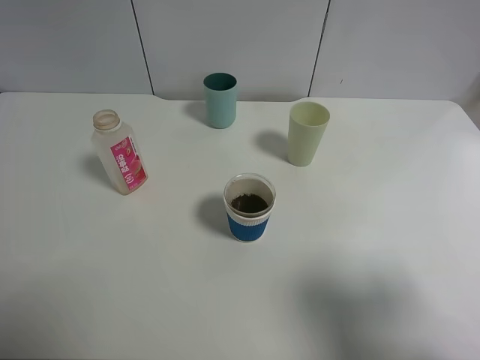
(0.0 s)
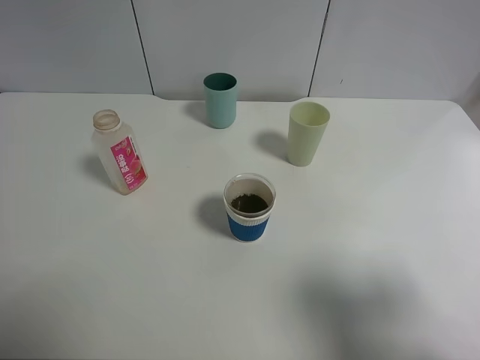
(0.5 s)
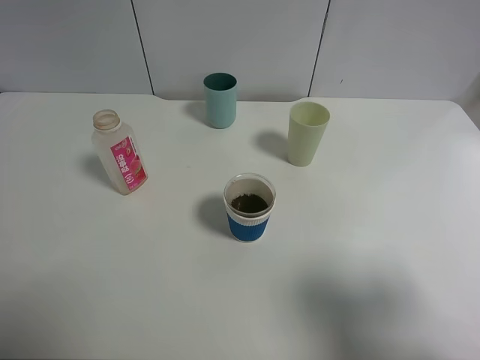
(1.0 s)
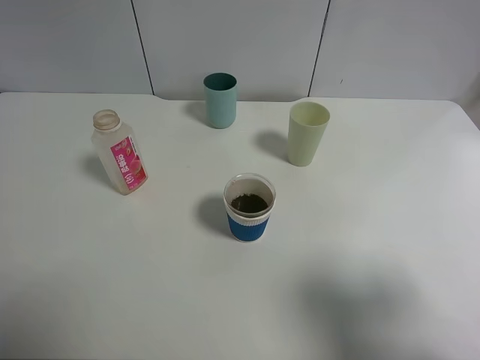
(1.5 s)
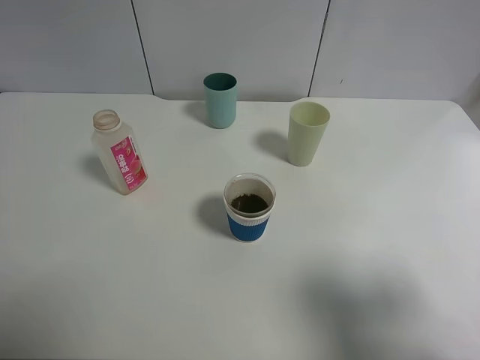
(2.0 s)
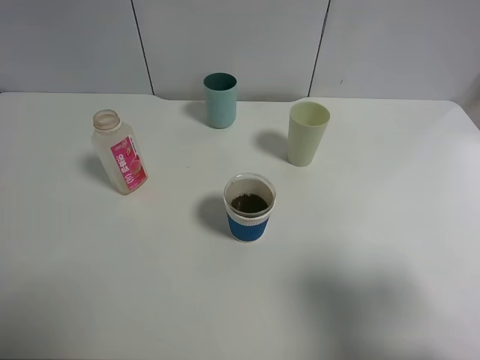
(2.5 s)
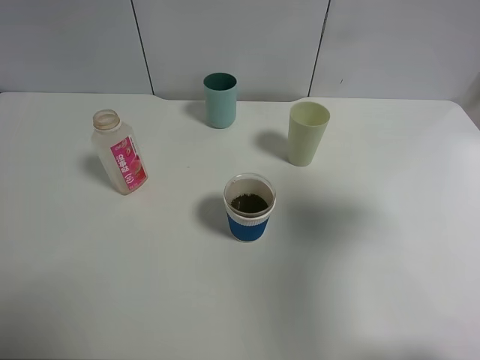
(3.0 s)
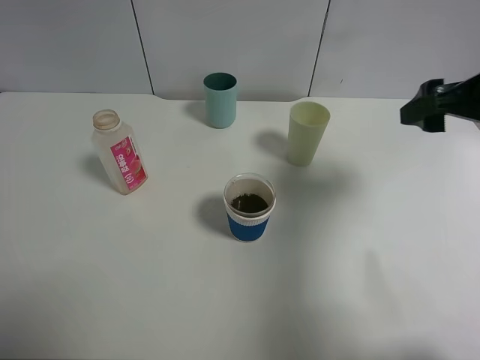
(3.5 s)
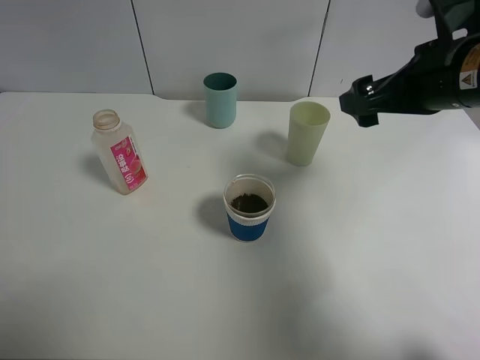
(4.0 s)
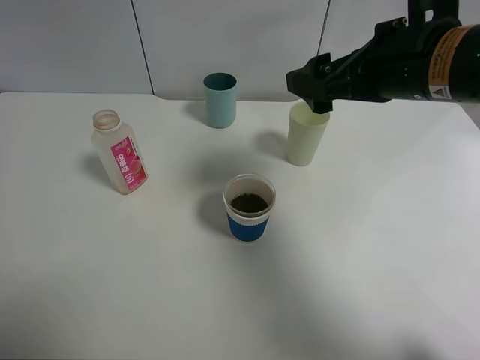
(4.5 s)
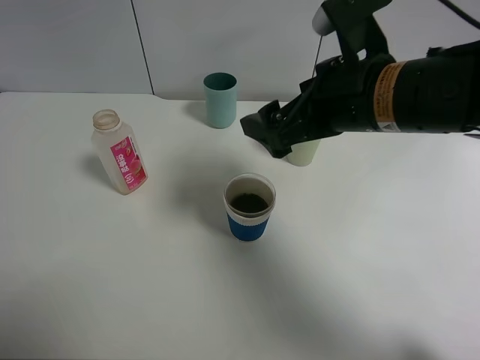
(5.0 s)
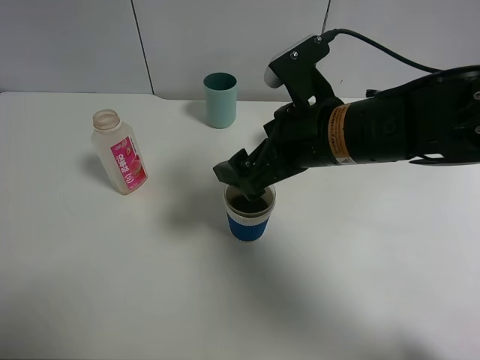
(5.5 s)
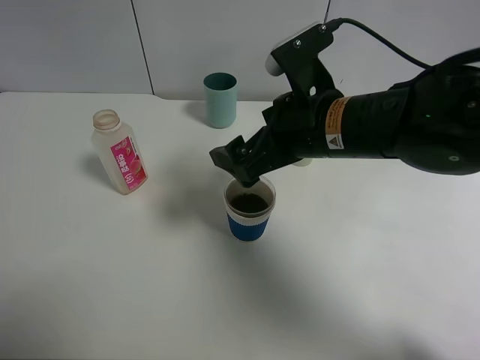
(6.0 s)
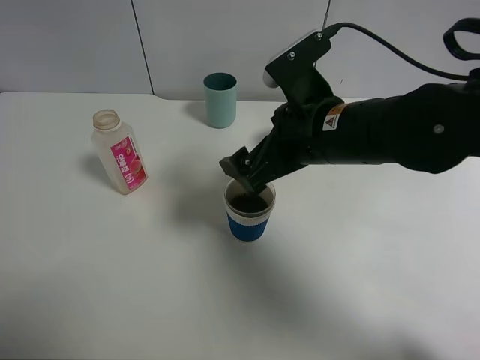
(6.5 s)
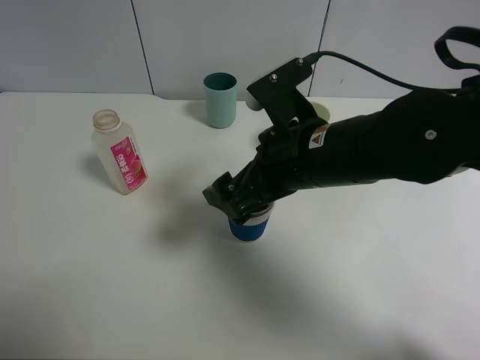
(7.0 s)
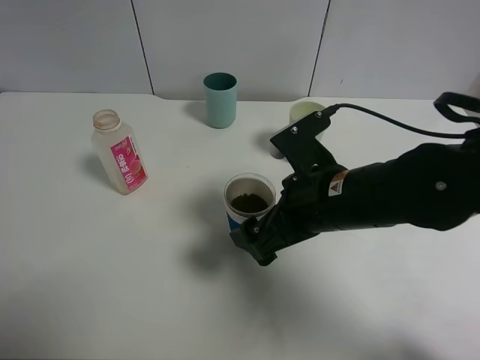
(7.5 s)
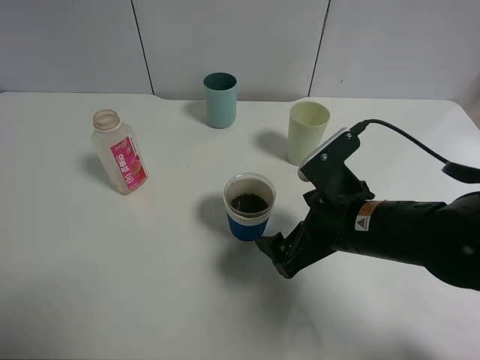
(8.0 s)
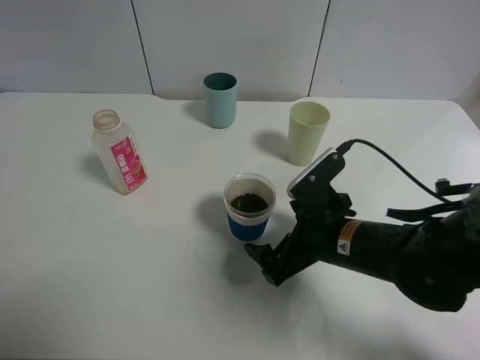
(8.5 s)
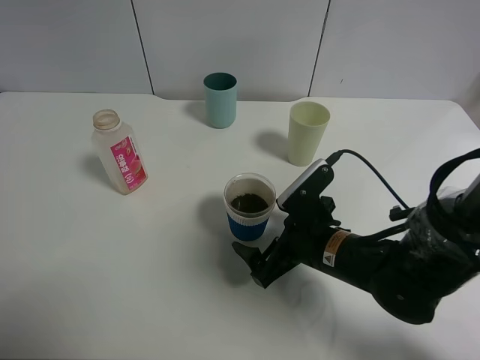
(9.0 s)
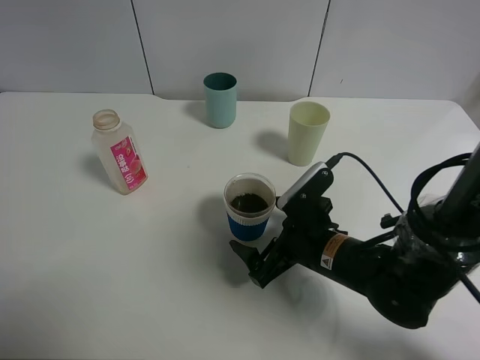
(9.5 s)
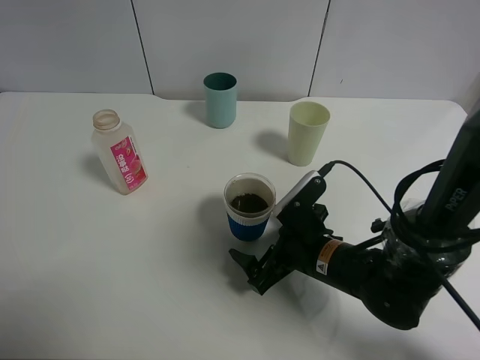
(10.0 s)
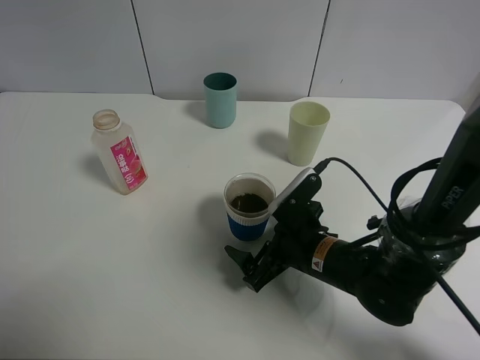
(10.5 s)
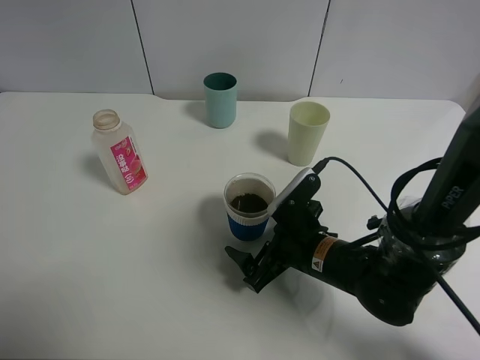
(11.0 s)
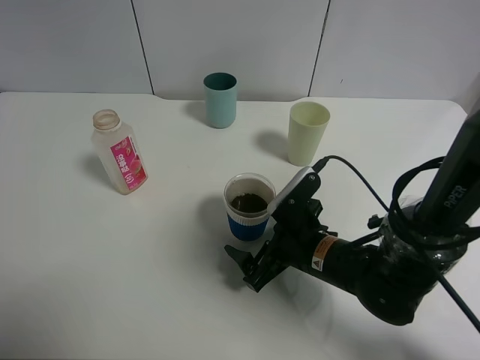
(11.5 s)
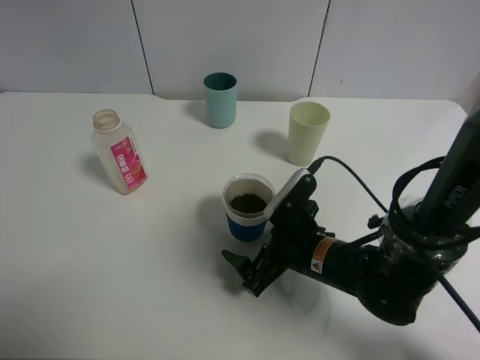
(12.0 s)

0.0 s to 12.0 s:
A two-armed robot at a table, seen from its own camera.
Task of the whole recording: use a clamp to hold the bottle of the drink, pour the beverage into a random cup, then clamp the cup containing the drink and pour the drink into another random cup.
0.0 to 2.0 s: Both grippers stay about where they are.
2.0 to 4.0 s: The right gripper shifts roughly 25 cm forward.
4.0 to 6.0 s: The right gripper moves to the left and downward, approximately 15 cm.
6.0 to 8.0 s: The right gripper moves downward and backward, roughly 10 cm.
8.0 to 10.0 s: The right gripper shifts roughly 10 cm downward.
10.0 to 12.0 s: Neither gripper changes place.

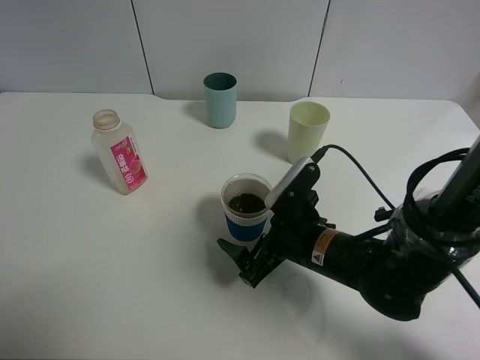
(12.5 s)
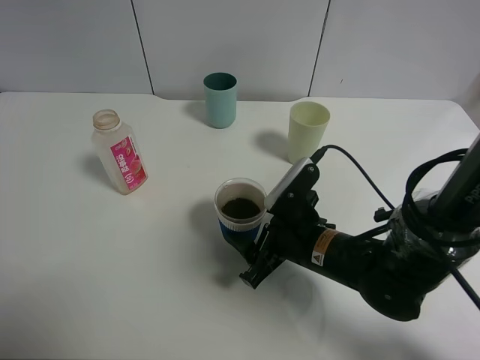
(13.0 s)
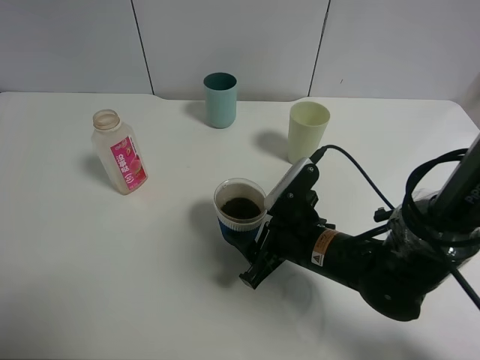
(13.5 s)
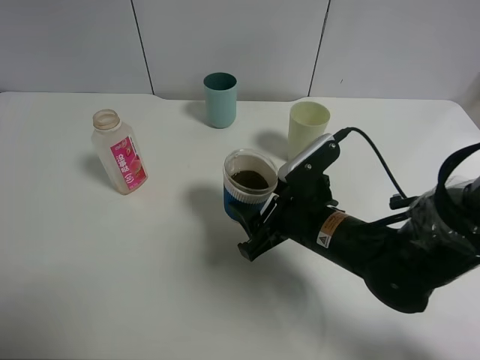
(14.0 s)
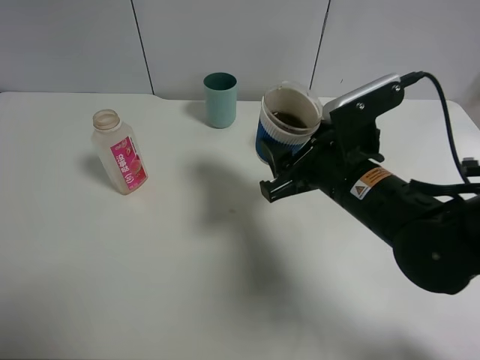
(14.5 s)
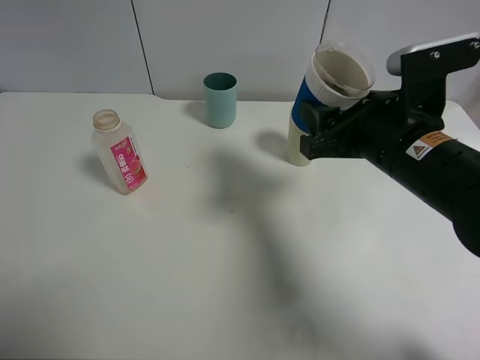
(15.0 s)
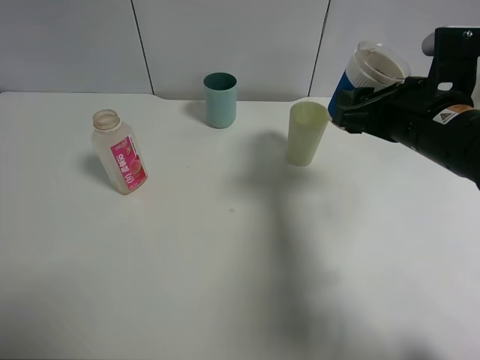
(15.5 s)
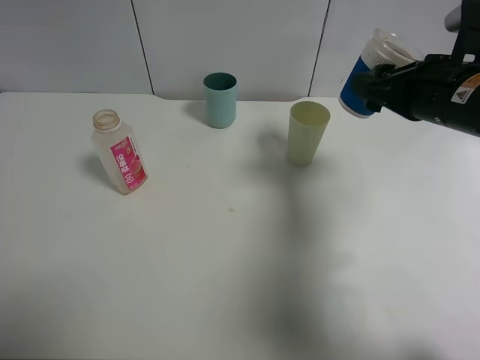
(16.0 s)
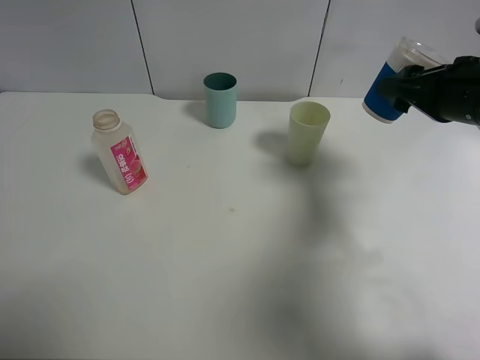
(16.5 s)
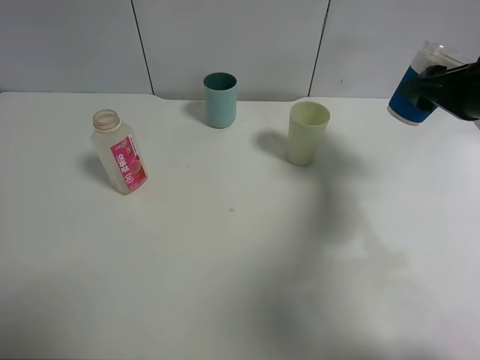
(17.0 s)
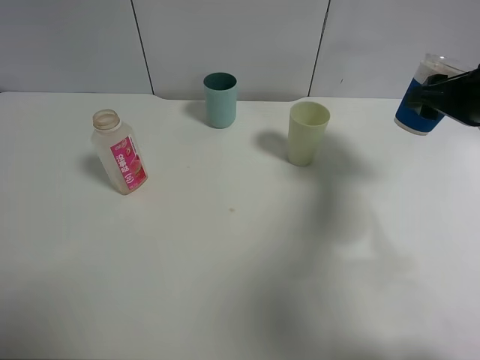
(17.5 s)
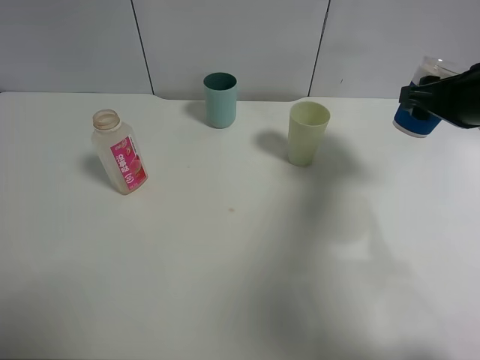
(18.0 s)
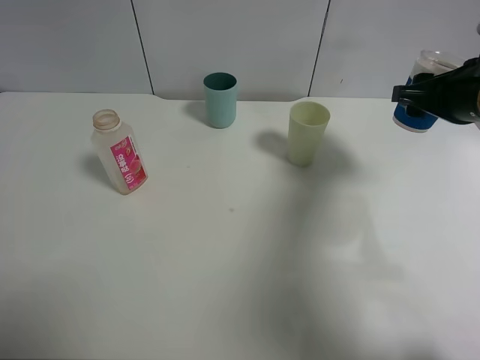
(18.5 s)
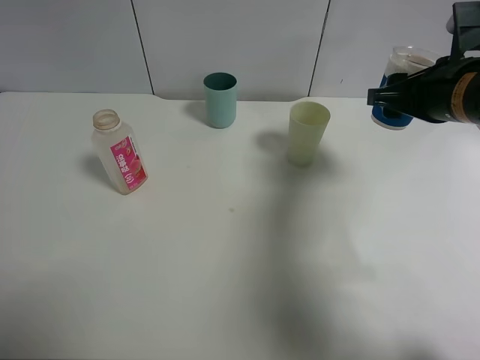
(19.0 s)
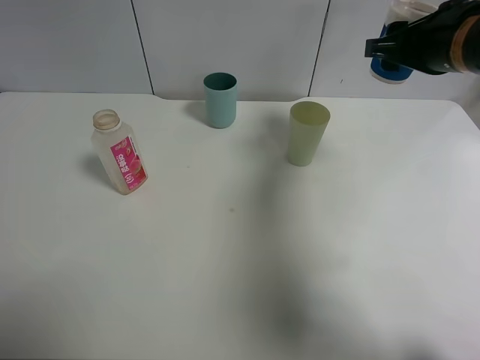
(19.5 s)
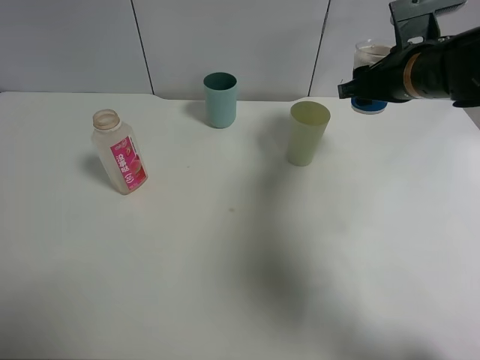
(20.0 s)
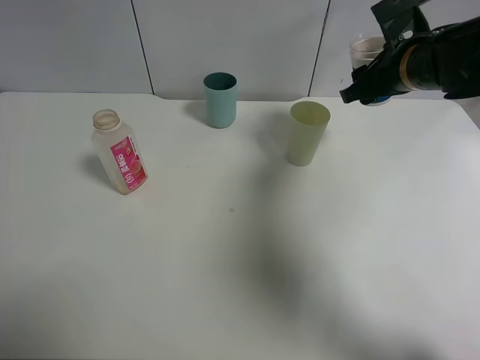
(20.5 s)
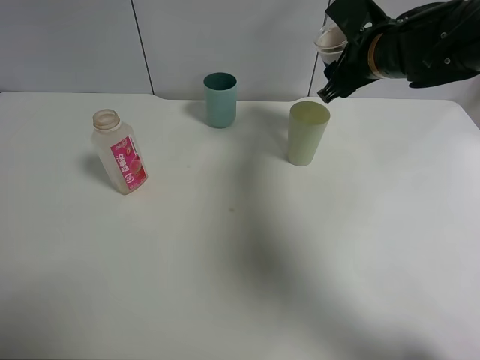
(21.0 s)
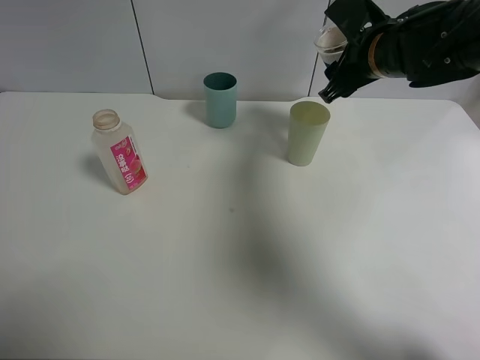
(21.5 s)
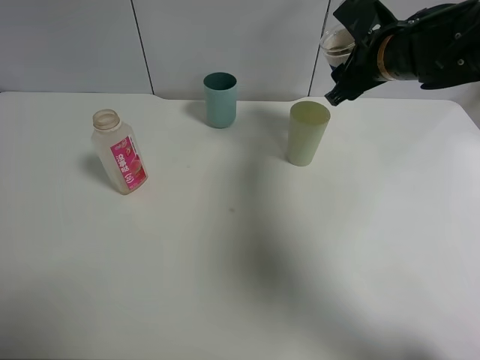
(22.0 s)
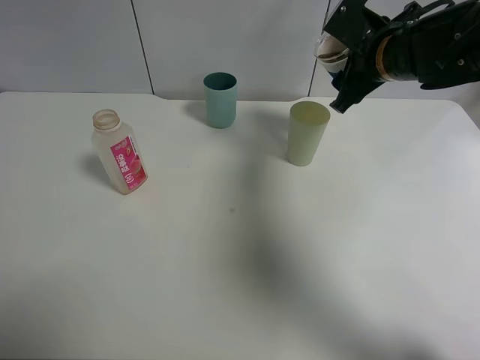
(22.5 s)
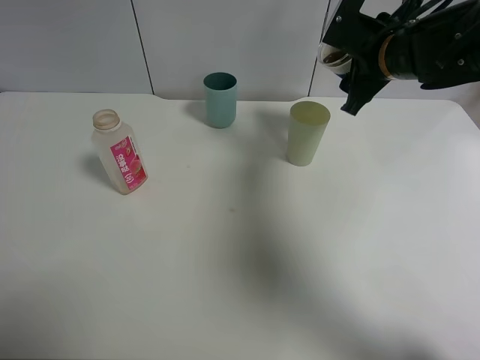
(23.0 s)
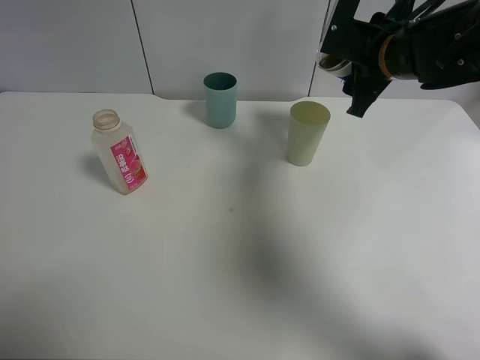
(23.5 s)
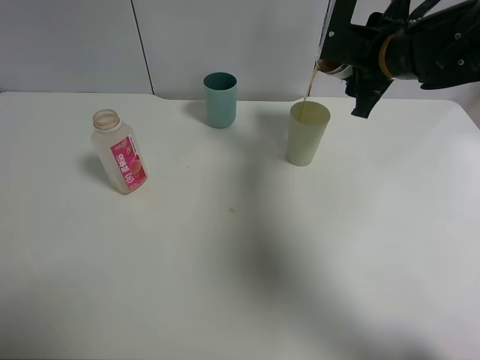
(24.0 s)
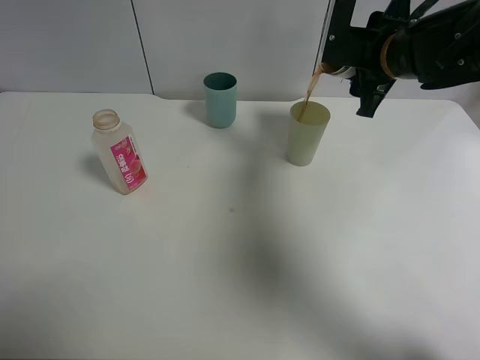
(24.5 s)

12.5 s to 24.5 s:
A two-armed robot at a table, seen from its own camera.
Task of the whole recording: use a clamp to hold the bottle of the drink, pour the beverage into a random cup, then clamp the cup containing the drink and pour the drink into another random cup.
12.5 to 14.5 s: The right gripper goes some 10 cm upward, and closes.
14.5 to 16.5 s: The right gripper is displaced to the right, forward and upward by approximately 15 cm.
16.5 to 18.5 s: The grippers move only a little.
18.5 to 20.5 s: The right gripper is displaced forward and to the left by some 10 cm.

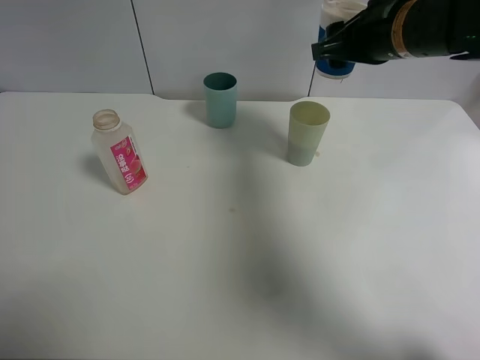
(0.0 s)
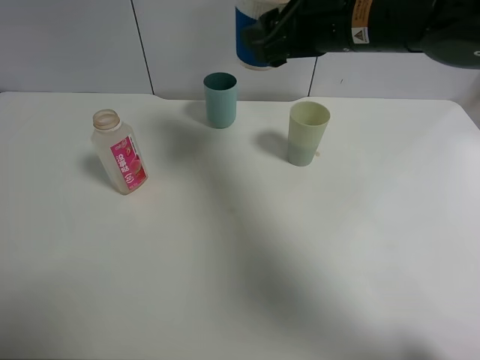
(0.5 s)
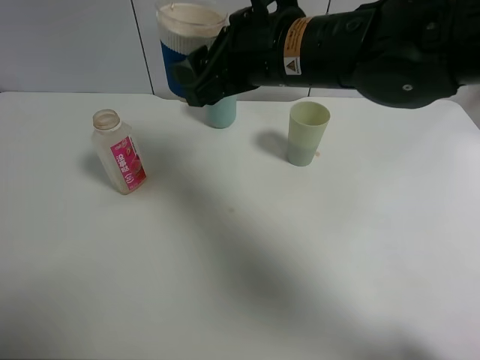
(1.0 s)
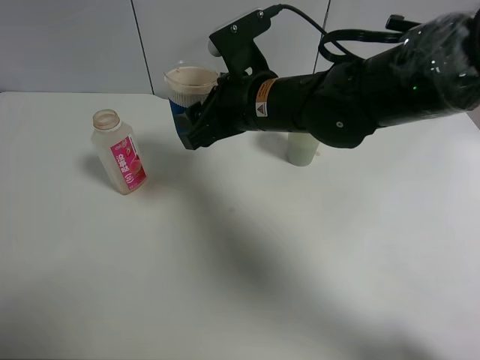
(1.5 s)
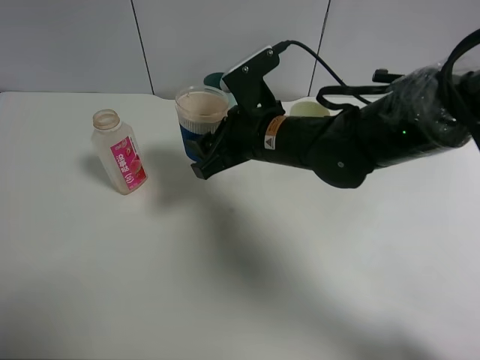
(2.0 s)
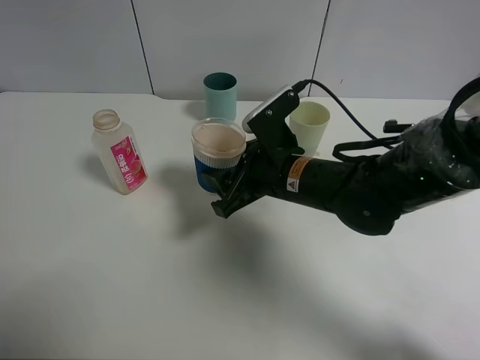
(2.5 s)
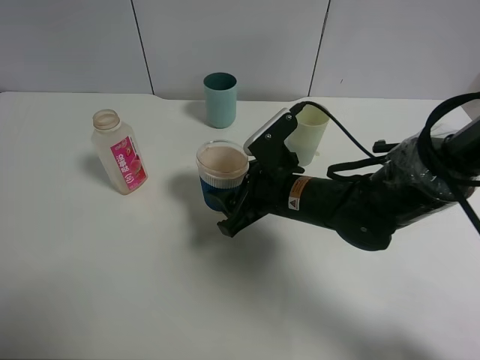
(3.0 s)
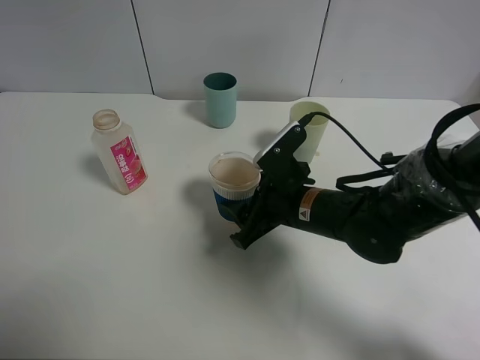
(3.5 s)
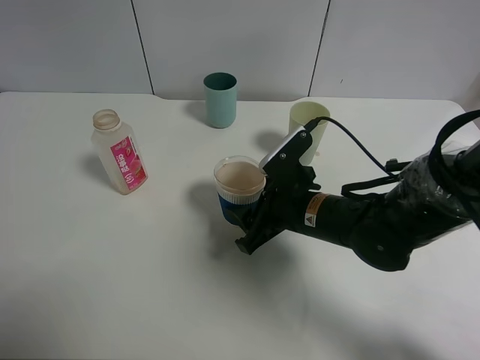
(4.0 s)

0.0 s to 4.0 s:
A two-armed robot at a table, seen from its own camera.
Task of the whole recording: use a clamp to hold the bottle of the drink, pour the beverage into a random cup, then clamp the cup containing the drink and pour the drink into another random cup.
0.0 to 2.0 s: The right gripper heads to the left, downward and backward, covering about 20 cm.
2.0 to 4.0 s: The right gripper goes roughly 10 cm downward and backward.
